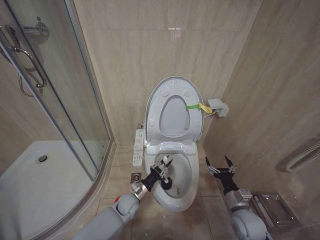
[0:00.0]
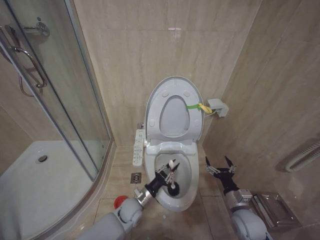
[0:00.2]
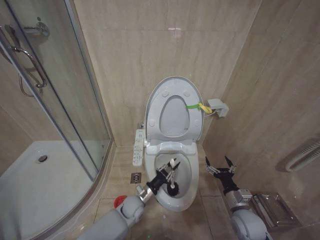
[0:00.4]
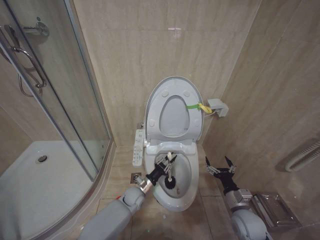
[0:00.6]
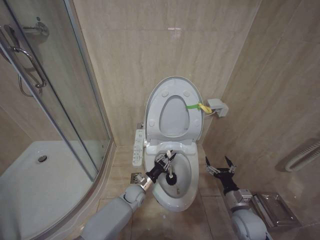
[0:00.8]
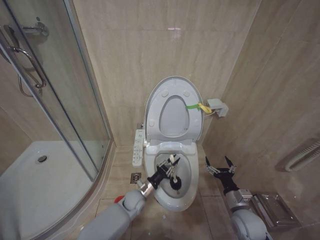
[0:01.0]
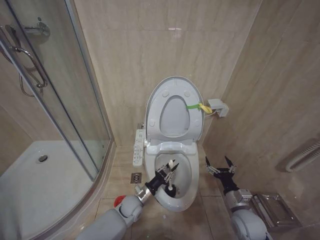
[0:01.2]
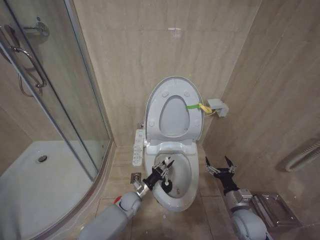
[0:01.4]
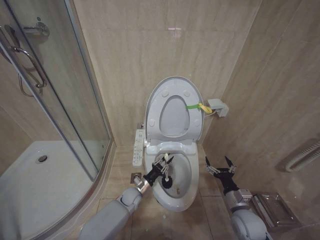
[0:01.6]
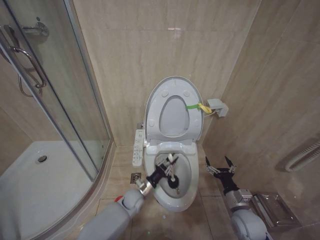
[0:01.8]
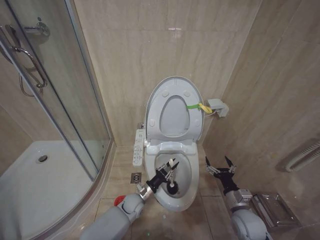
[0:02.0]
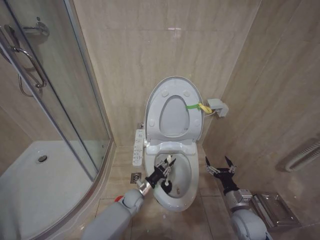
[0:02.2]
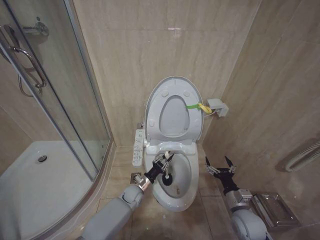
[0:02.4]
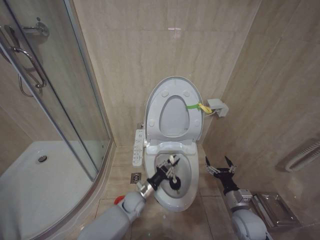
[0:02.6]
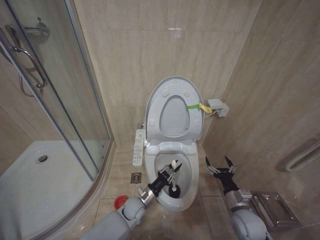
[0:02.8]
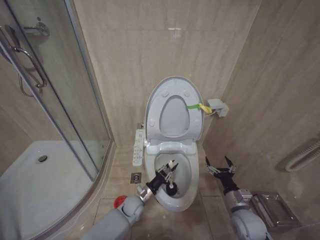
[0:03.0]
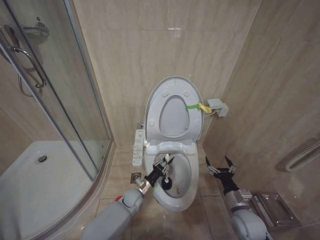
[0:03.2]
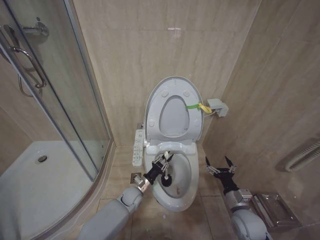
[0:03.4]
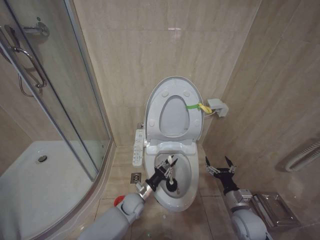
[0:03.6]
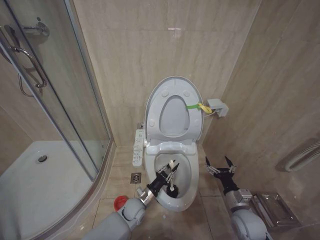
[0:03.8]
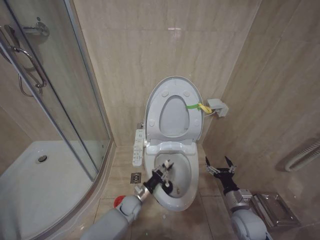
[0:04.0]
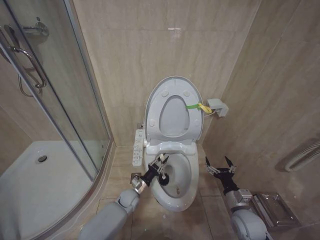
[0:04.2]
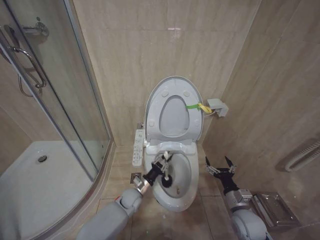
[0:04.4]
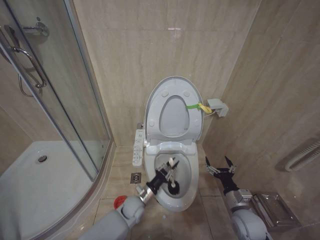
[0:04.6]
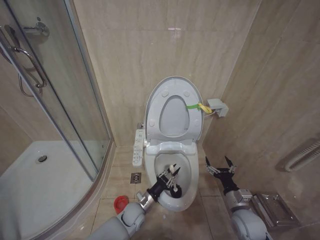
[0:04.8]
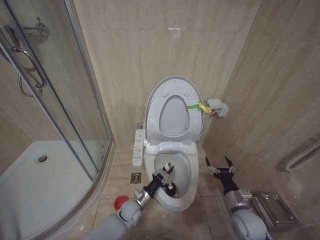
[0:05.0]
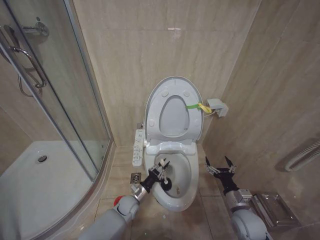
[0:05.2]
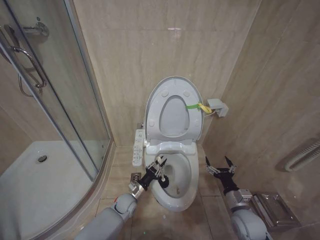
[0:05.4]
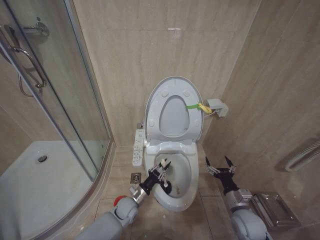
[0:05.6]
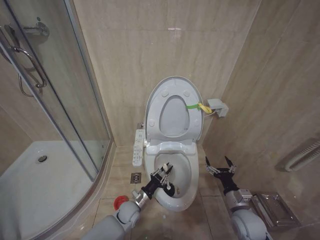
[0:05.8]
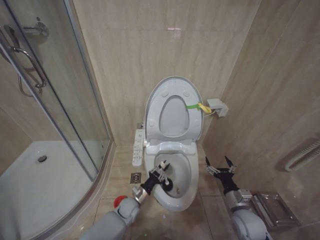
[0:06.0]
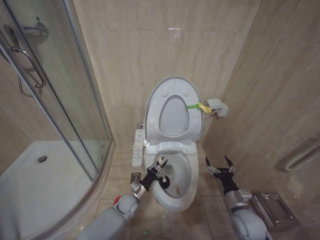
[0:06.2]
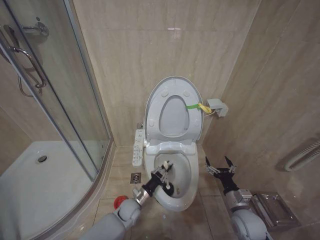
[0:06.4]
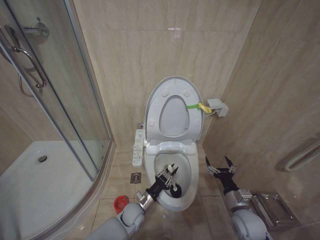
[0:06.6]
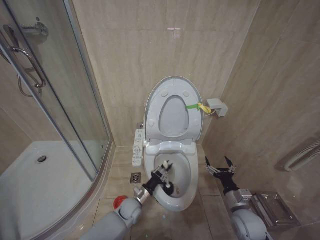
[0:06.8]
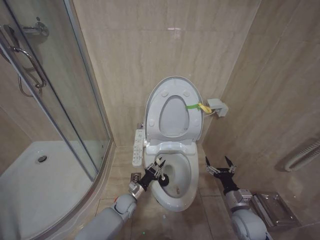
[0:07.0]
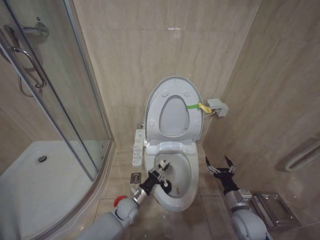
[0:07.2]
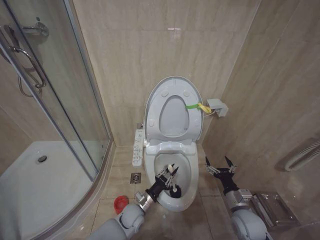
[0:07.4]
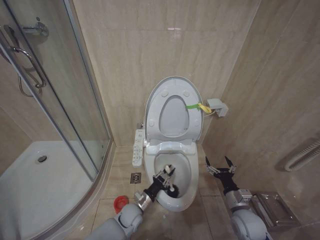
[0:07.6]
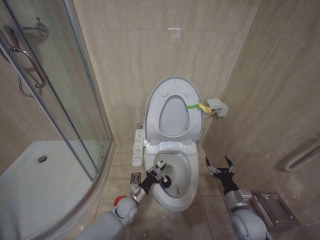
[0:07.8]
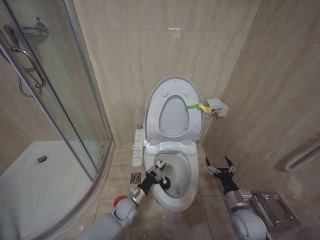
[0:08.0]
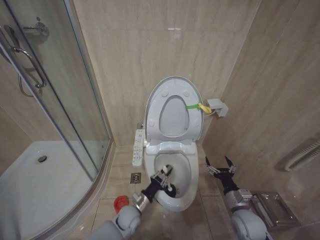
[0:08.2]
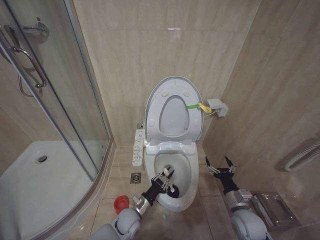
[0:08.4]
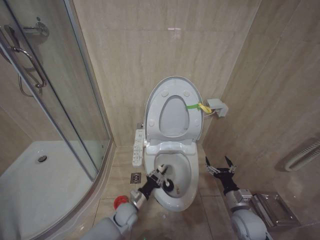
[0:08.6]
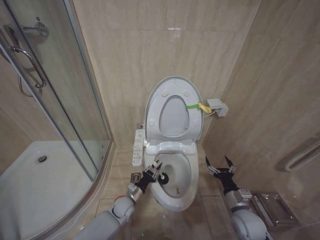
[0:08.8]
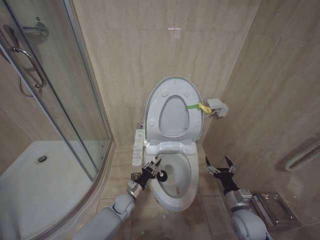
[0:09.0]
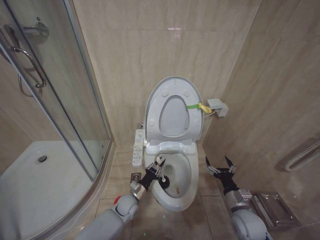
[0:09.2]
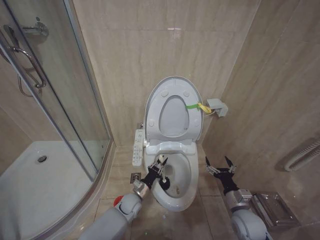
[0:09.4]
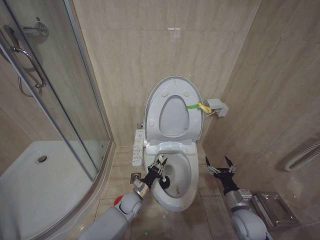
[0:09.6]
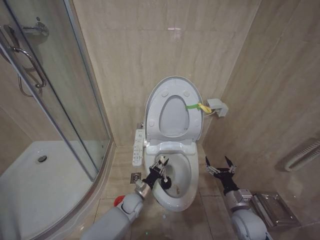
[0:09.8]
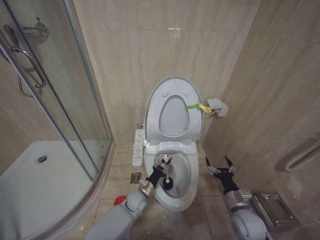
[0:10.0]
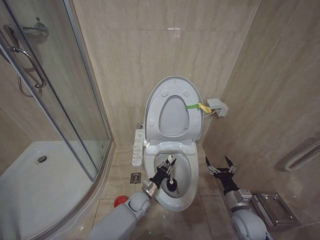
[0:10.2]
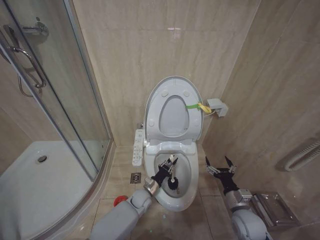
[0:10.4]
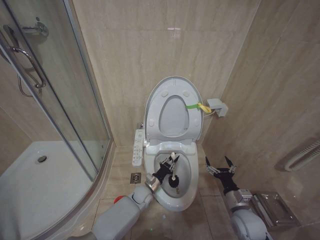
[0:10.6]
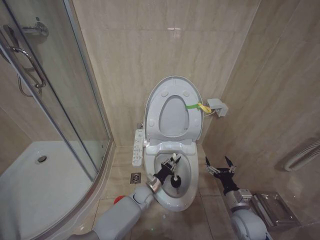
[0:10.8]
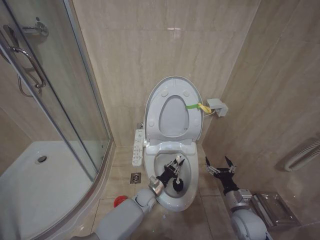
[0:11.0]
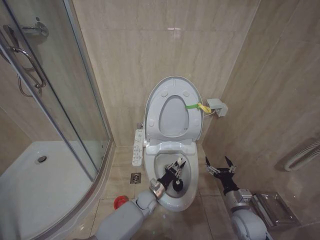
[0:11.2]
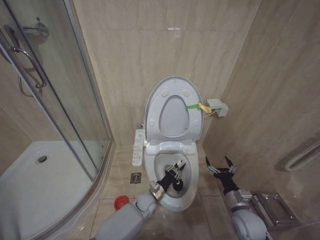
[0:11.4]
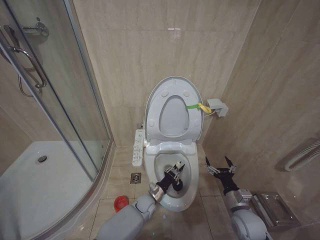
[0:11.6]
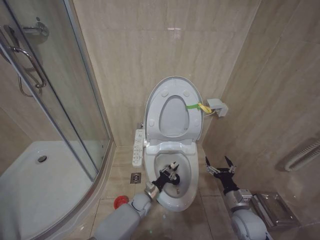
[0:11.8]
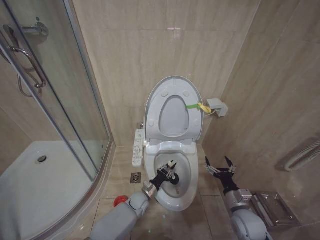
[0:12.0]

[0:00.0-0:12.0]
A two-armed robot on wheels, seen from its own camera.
Task of the whole recording: Open the toilet lid, clean the toilet bowl with a toilet brush, close the toilet lid, and flush.
0:00.0 to 0:03.0: The grippers move only a little.
0:03.0 to 0:04.4: The left gripper moves forward and backward over about 5 cm, changing direction 2 times.
0:04.4 to 0:06.0: The left gripper moves forward and backward over approximately 5 cm, changing direction 2 times.
0:06.0 to 0:07.6: There are only small adjustments of the grippers.
0:07.6 to 0:09.0: The left gripper swings forward and backward, approximately 5 cm each way, with 2 reversals.
0:09.0 to 0:10.4: The left gripper is displaced to the right by about 10 cm.

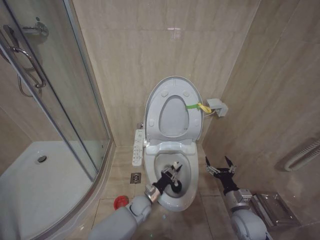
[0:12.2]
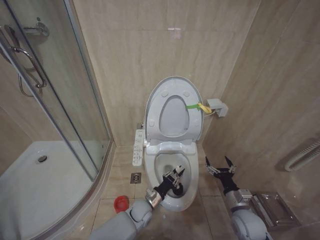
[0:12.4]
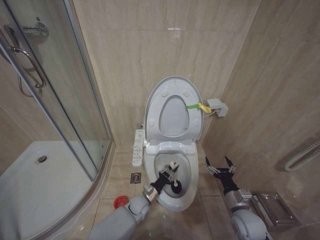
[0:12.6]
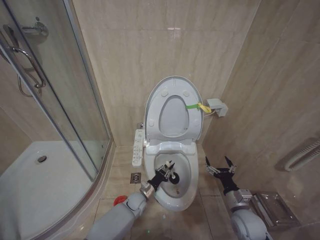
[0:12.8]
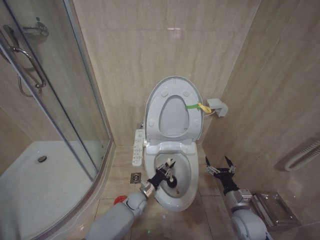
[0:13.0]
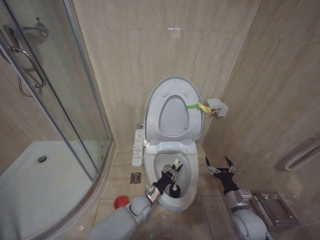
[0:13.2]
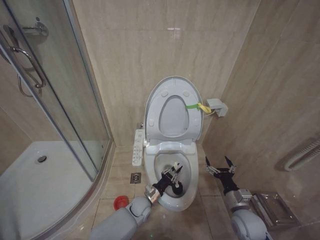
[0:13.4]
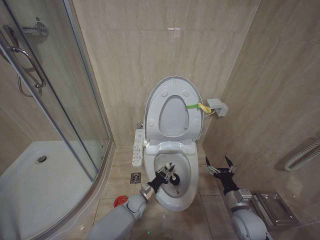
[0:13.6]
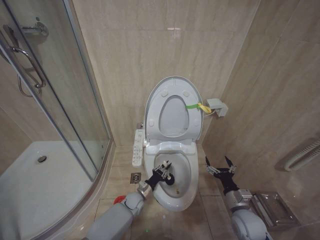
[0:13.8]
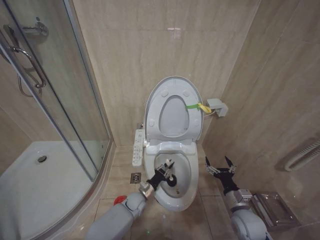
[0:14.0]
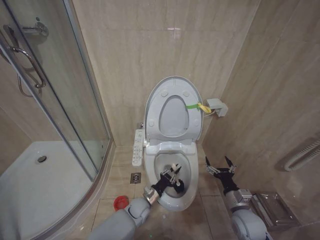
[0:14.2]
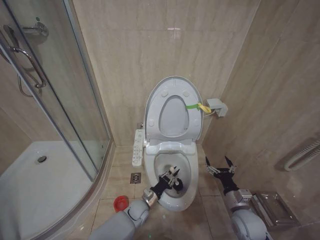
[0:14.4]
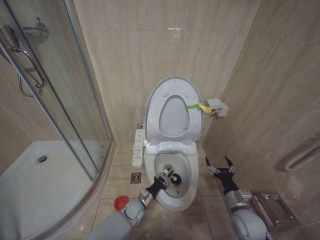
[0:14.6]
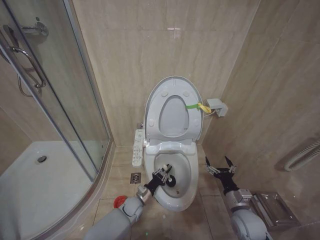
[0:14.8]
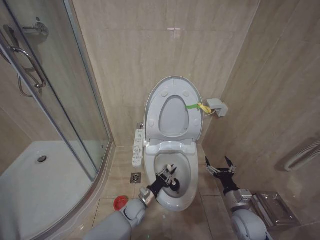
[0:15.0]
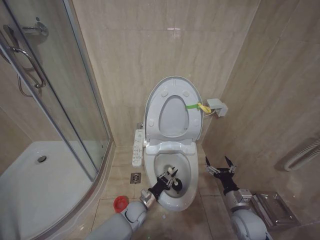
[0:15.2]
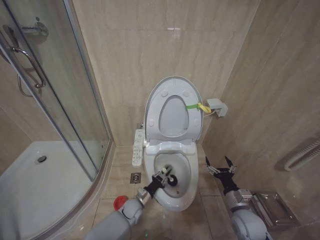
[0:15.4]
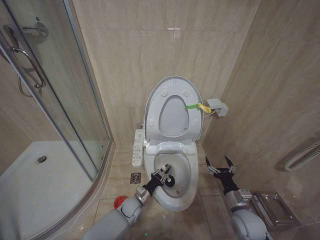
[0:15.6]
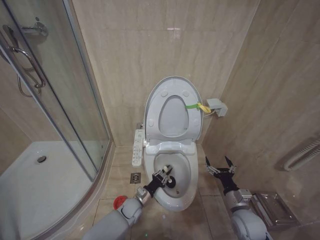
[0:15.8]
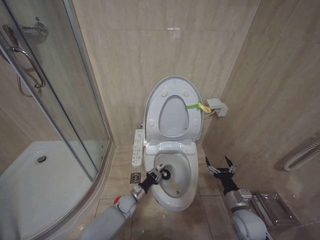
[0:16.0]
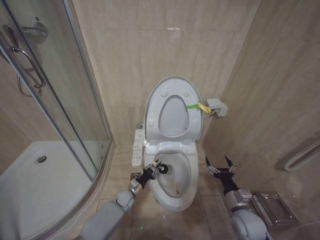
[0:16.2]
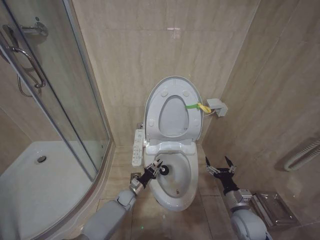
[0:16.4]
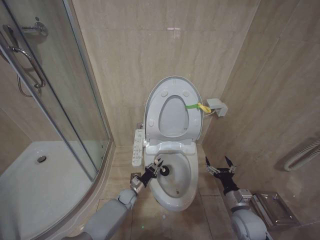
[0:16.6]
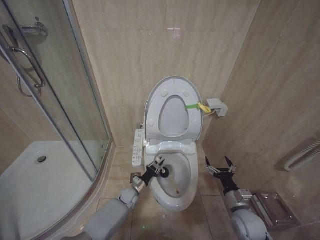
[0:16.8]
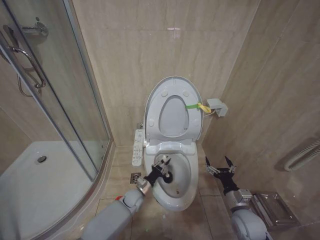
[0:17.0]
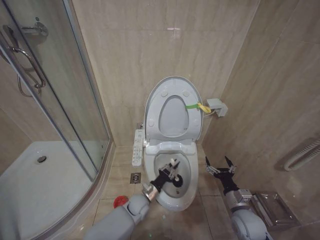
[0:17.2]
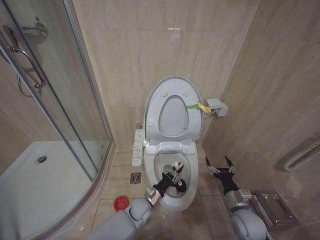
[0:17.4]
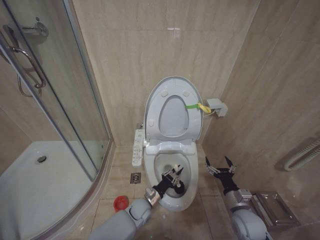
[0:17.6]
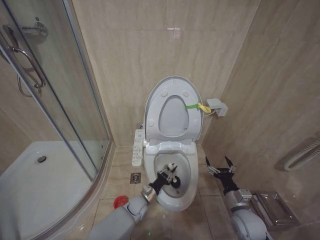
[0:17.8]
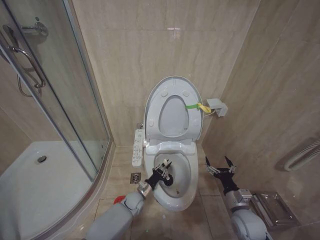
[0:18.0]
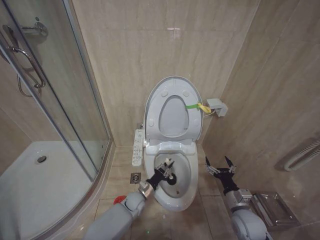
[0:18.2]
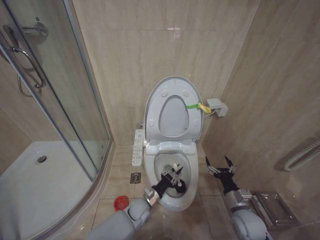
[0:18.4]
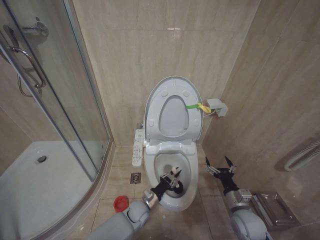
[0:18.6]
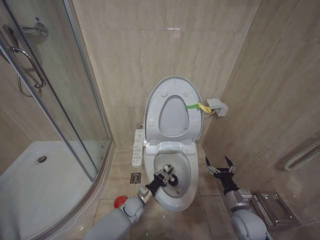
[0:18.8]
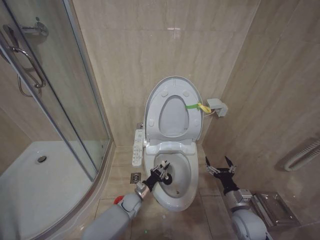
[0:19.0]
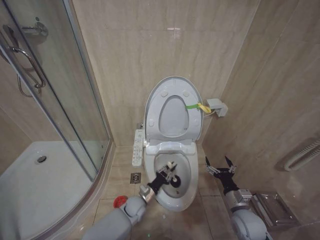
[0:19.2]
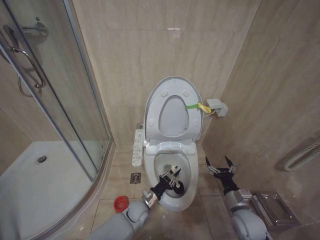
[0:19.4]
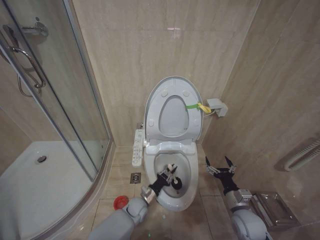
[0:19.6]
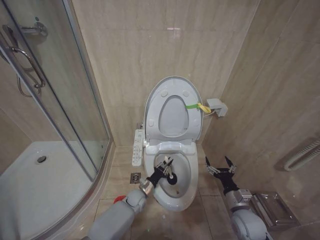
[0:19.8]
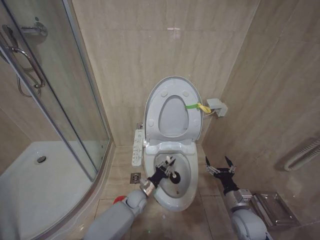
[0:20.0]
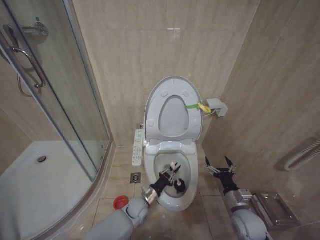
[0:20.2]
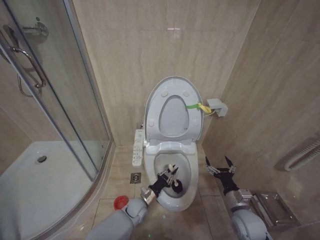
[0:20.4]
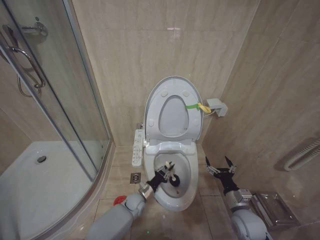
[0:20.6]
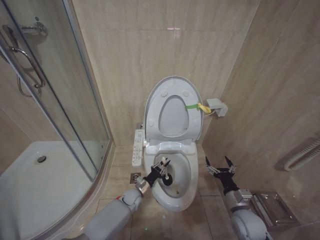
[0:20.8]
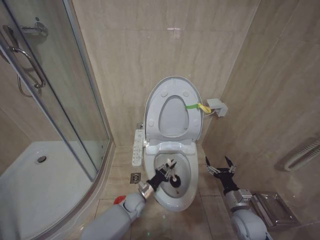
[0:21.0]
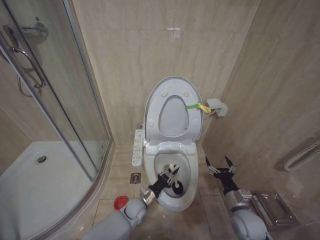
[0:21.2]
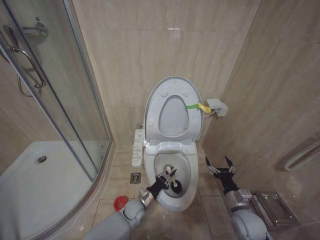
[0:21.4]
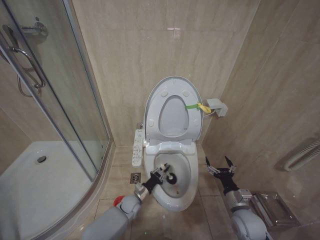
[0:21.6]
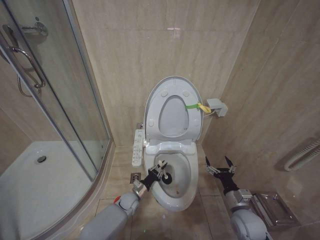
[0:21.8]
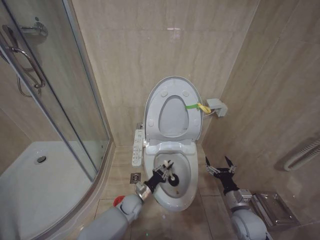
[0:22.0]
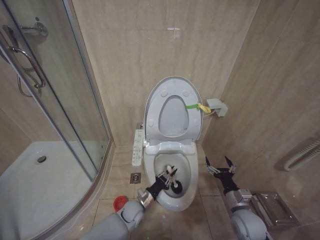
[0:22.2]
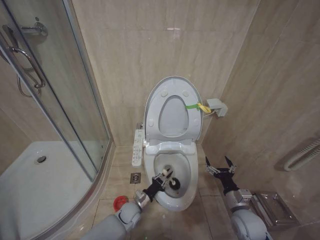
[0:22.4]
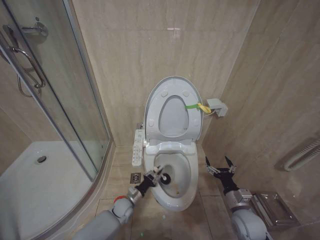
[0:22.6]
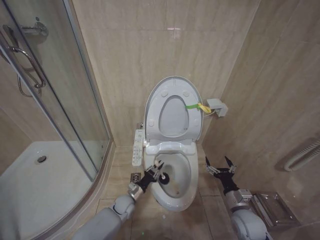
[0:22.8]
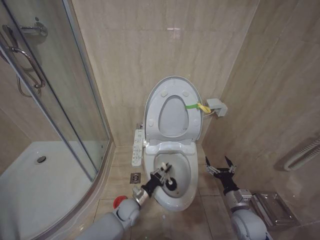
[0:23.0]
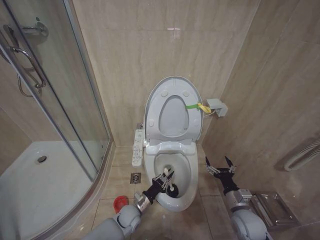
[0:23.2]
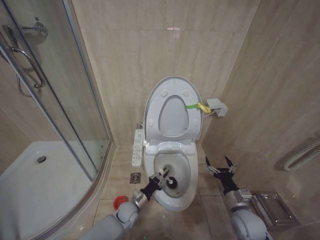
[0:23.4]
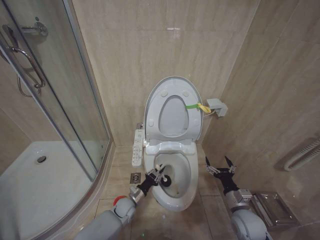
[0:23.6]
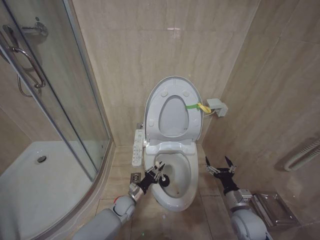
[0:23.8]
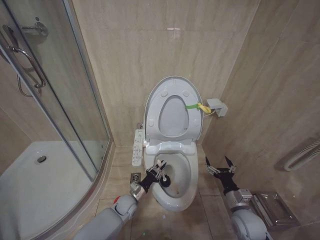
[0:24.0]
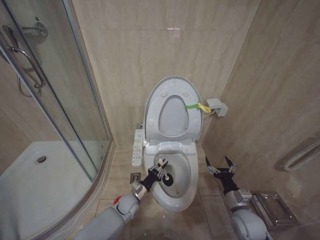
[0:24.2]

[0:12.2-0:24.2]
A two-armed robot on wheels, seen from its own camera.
Task of the whole recording: Open the toilet lid, clean the toilet bowl with a toilet brush, close the toilet lid, and flush.
0:12.2 to 0:13.8: The grippers stay close to where they were, moving slightly.
0:13.8 to 0:15.2: The left gripper moves some 5 cm.
0:15.2 to 0:16.6: The left gripper is displaced forward and to the left by about 10 cm.
0:18.2 to 0:19.8: The left gripper moves forward and backward over roughly 5 cm, changing direction 3 times.
0:19.8 to 0:21.2: The left gripper swings forward and backward, roughly 5 cm each way, with 2 reversals.
0:21.2 to 0:22.6: The left gripper is displaced to the left by approximately 5 cm.
0:22.6 to 0:24.2: The grippers make only small movements.
